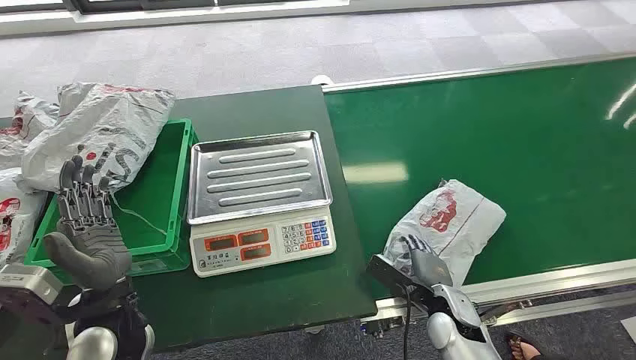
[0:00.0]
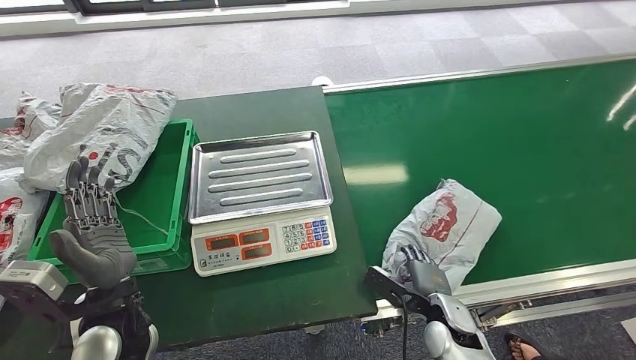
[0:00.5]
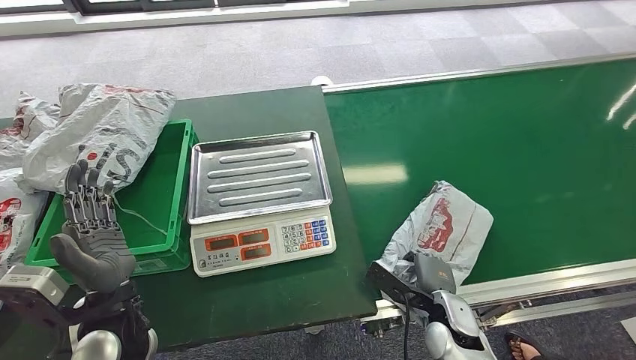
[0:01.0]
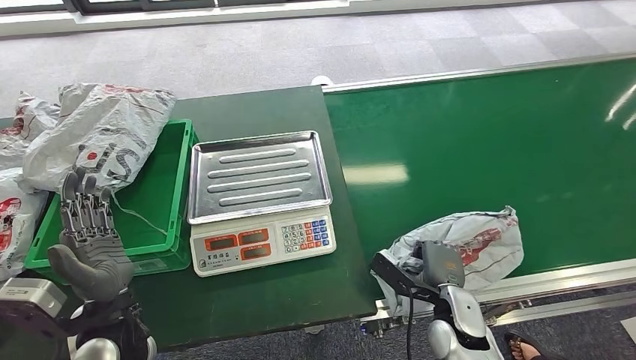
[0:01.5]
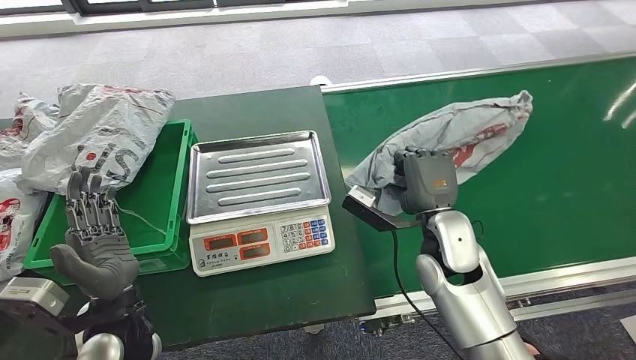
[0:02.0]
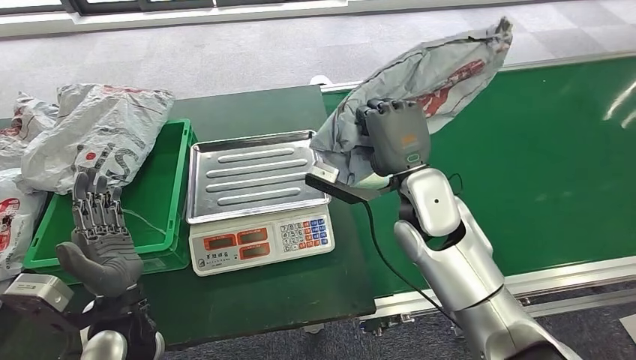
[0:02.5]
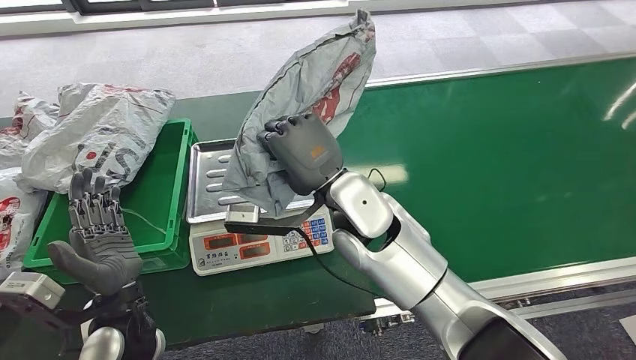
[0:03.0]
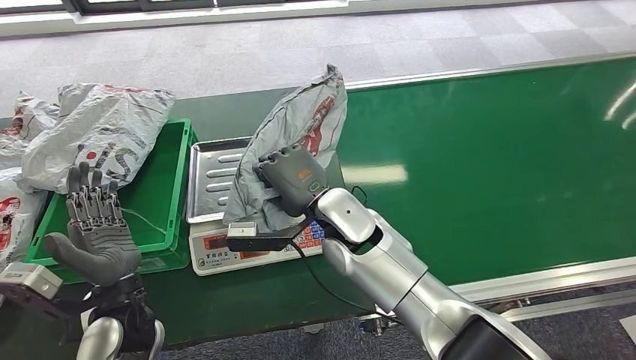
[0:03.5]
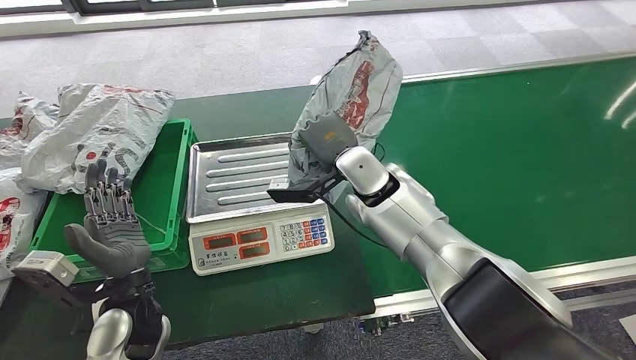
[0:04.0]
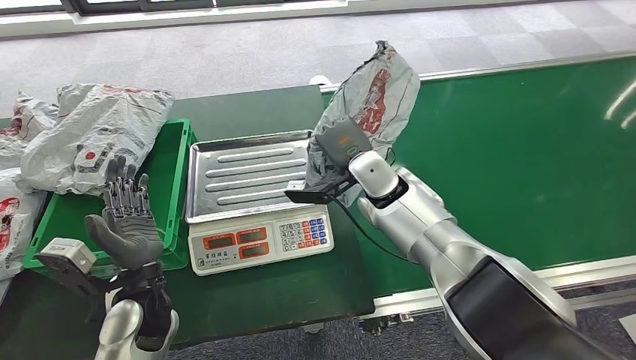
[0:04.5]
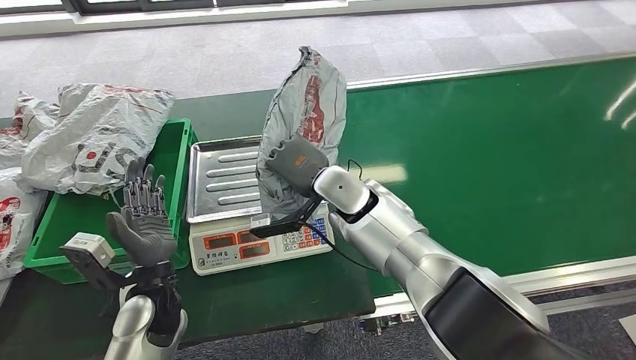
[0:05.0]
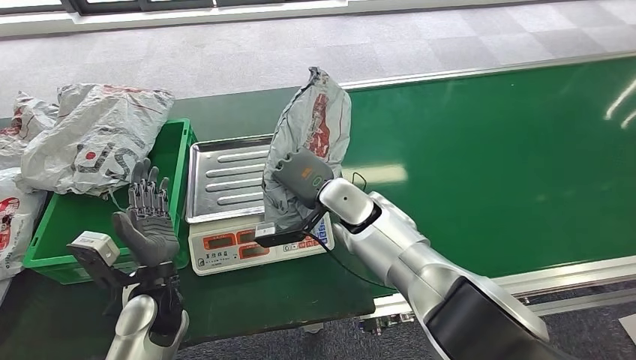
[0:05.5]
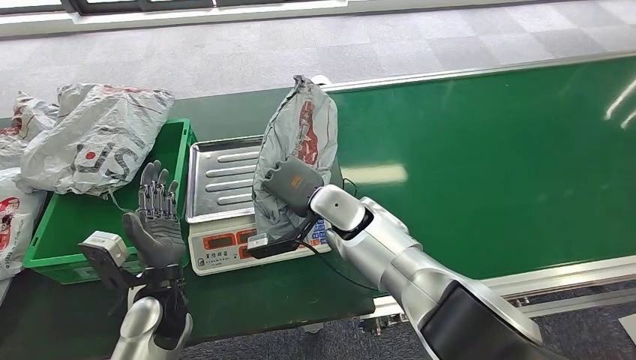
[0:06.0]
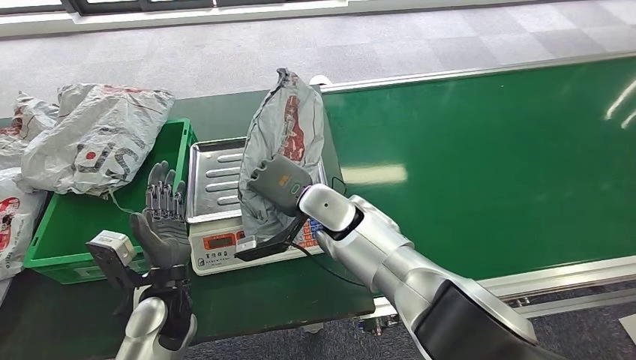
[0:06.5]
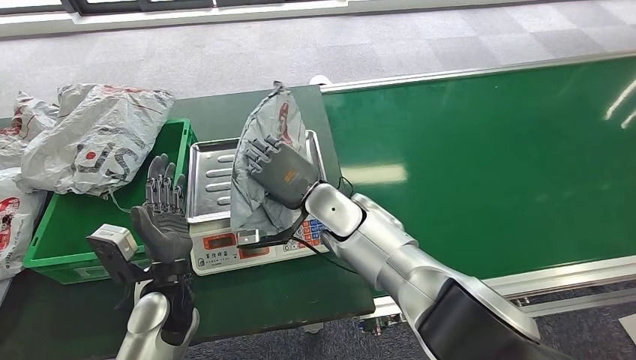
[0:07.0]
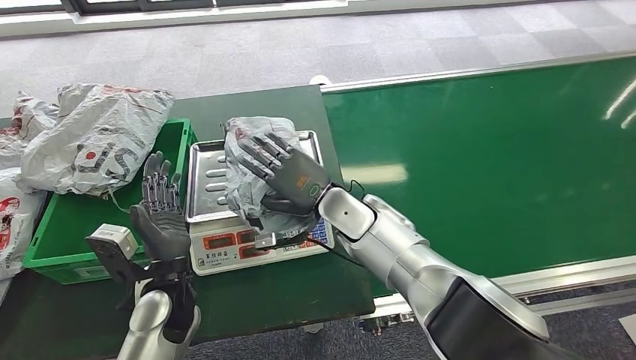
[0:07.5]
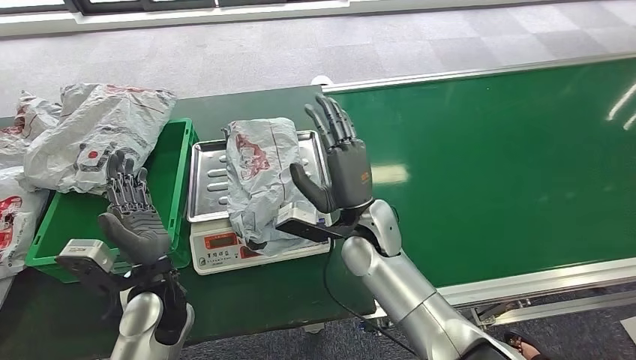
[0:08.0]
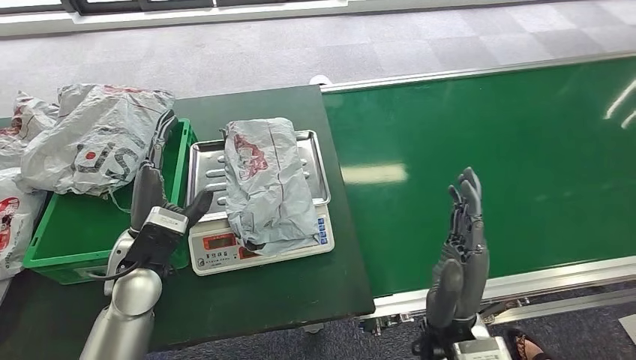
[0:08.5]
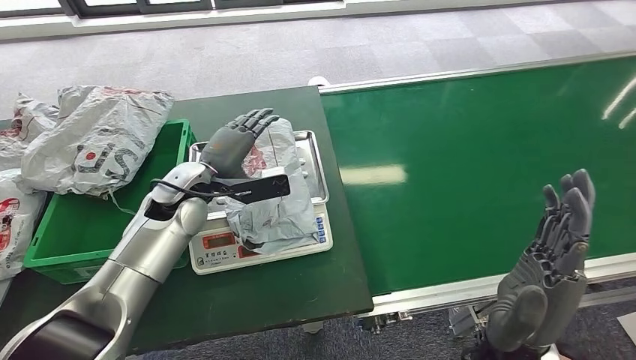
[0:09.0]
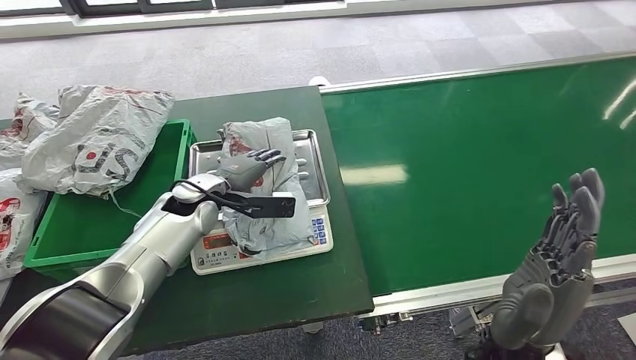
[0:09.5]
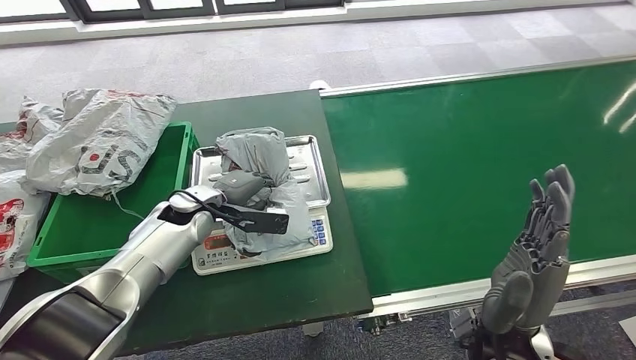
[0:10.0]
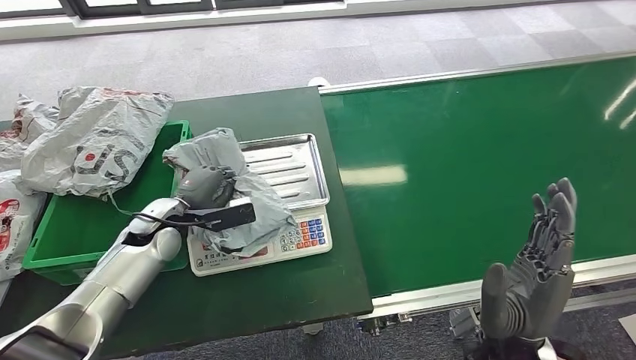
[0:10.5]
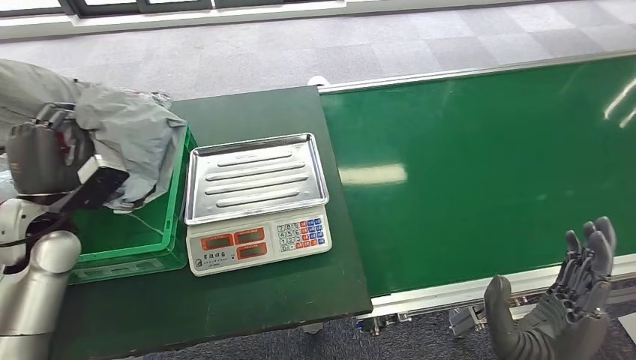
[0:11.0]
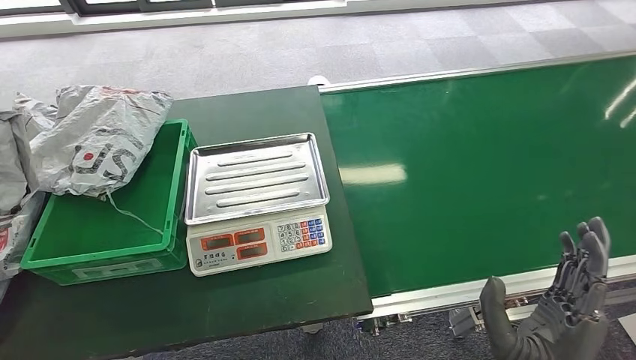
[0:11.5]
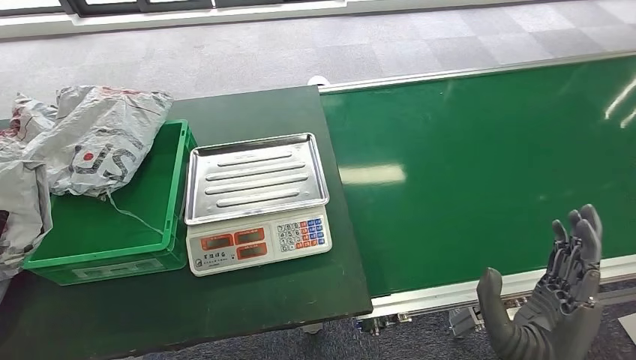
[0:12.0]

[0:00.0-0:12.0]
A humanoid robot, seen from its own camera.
Step, 0:00.0 to 0:02.0: Pick up the package from the conveyor belt.
Step, 0:02.5 to 0:08.0: Place the package onto the inbound machine.
Step, 0:08.5 to 0:11.0: Pick up the package from the inbound machine.
Step, 0:11.5 to 0:12.0: Place the package into the parcel locker.
